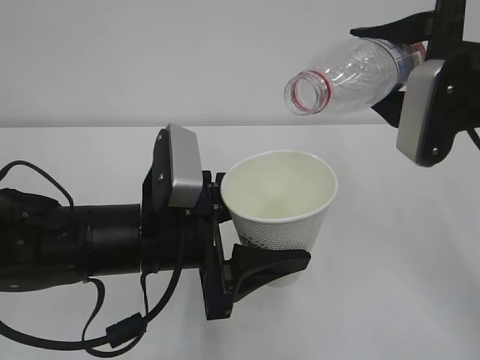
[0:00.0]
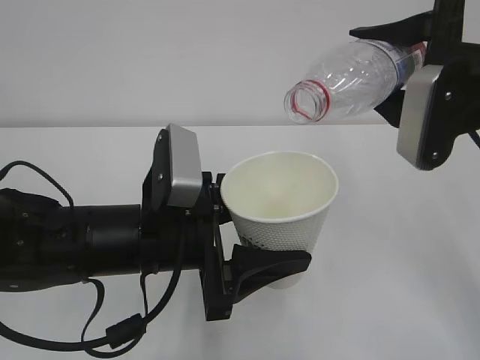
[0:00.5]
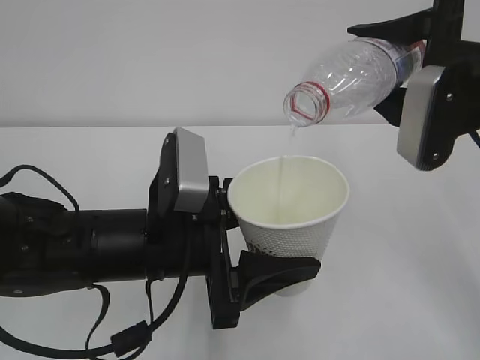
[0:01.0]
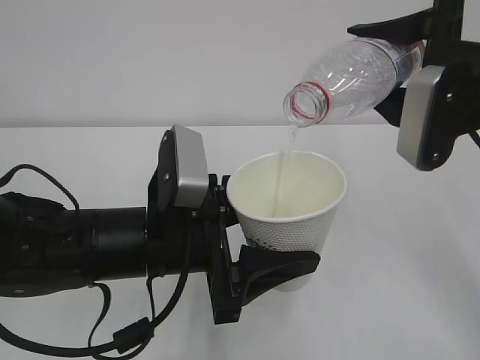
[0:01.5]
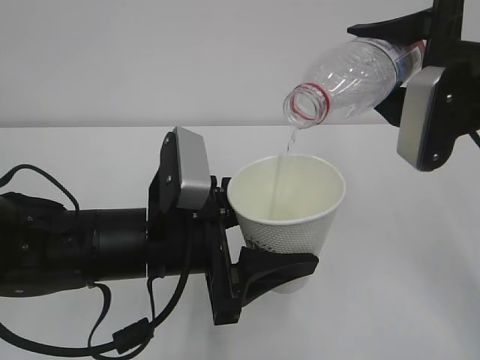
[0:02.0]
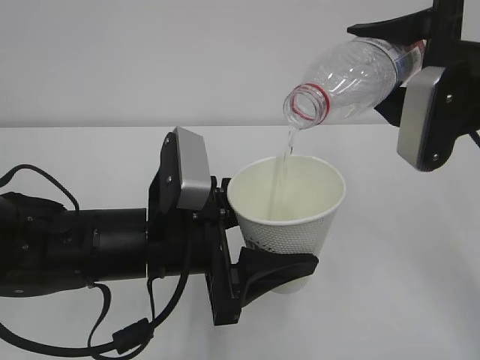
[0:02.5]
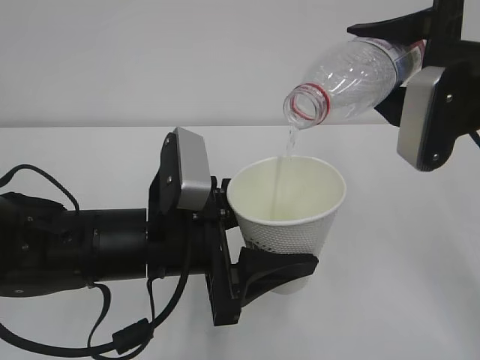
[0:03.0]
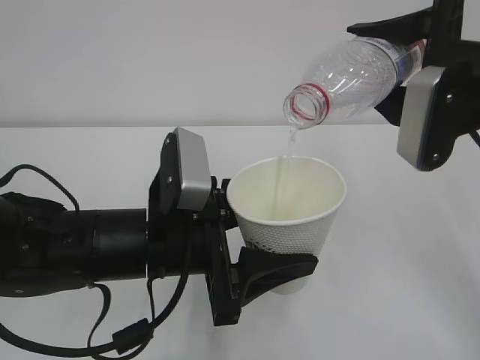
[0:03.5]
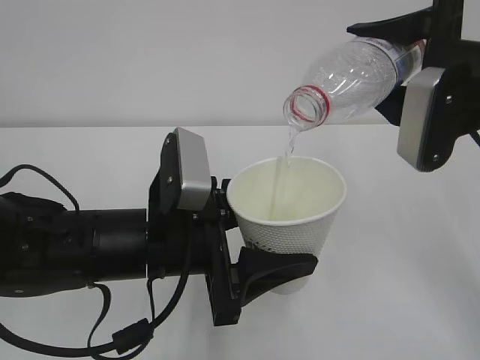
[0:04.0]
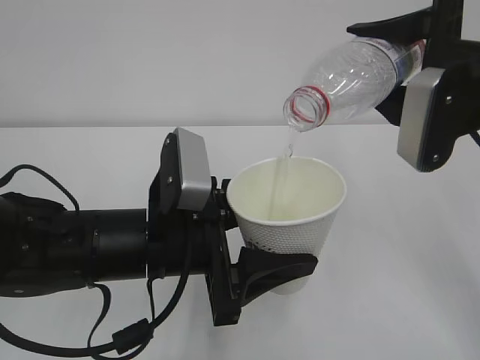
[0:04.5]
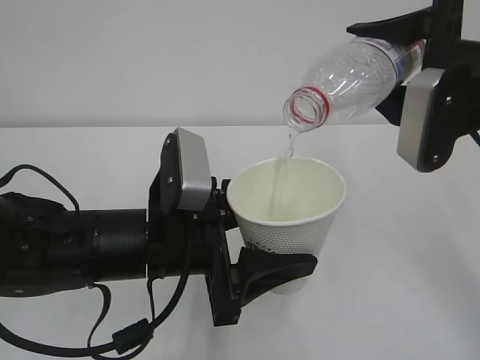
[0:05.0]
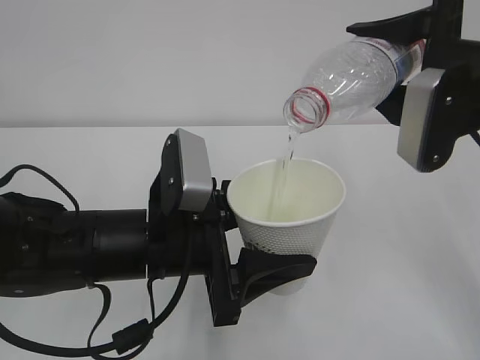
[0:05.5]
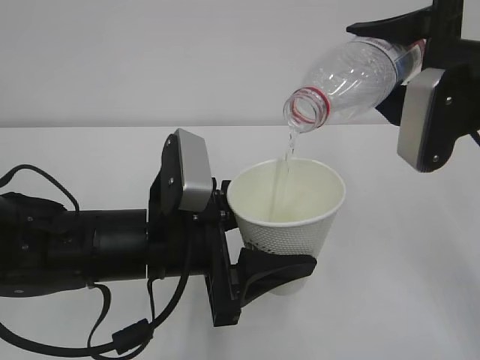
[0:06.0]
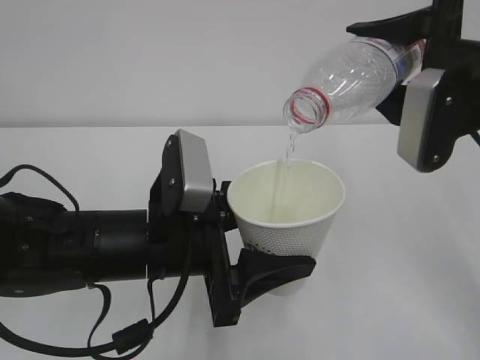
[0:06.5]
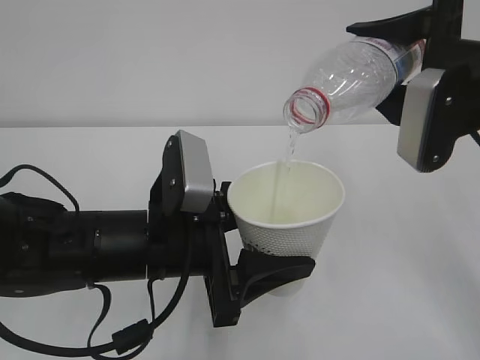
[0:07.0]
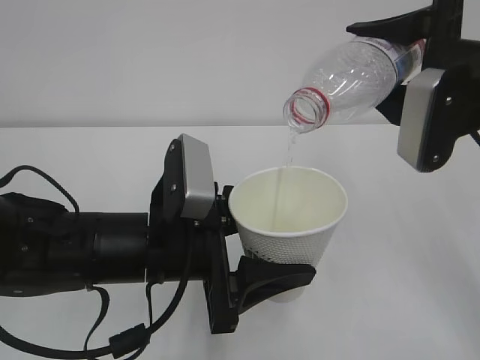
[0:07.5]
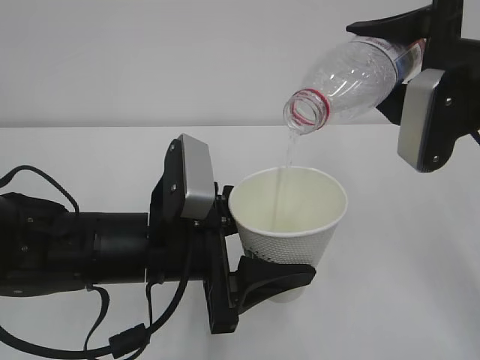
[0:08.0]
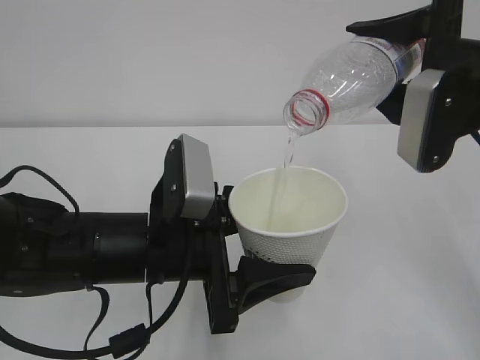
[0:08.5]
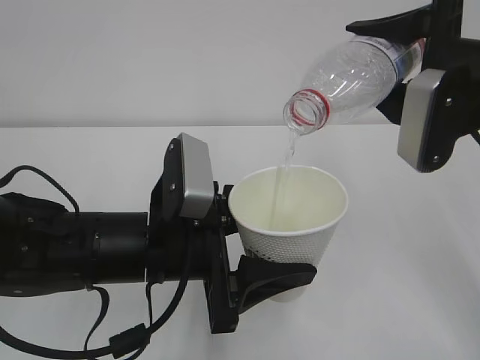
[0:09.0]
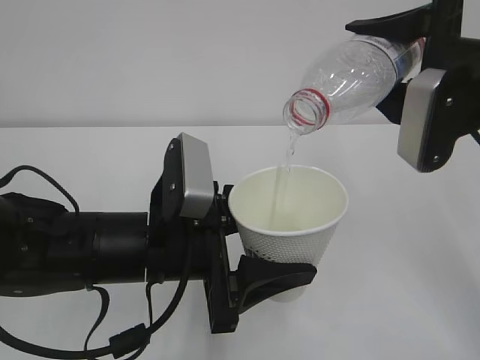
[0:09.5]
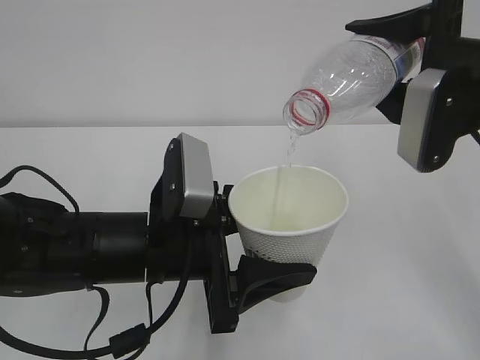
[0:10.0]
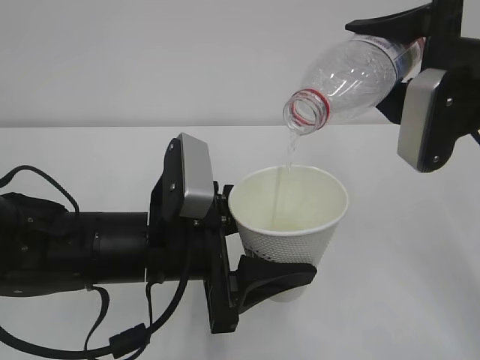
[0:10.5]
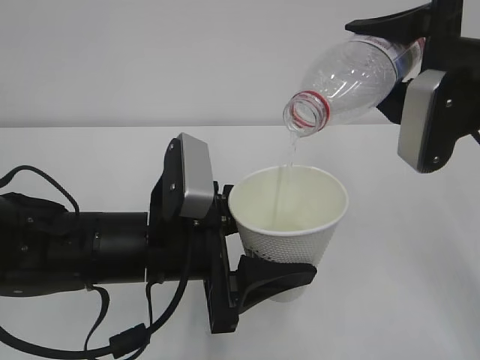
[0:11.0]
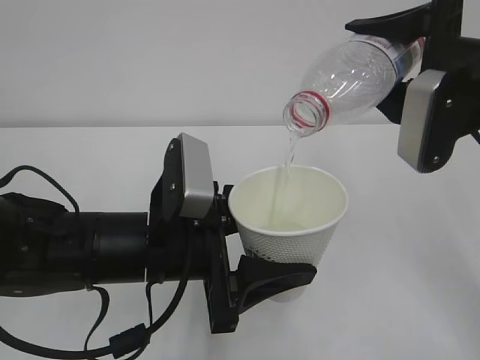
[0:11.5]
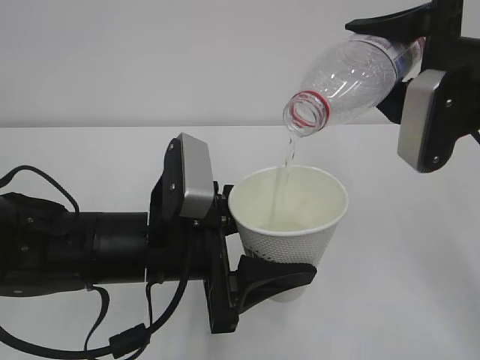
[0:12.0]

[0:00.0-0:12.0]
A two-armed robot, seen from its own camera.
0:00.0 to 0:02.0: Both grippers stay put.
0:02.0 to 0:12.0: Both grippers stay put.

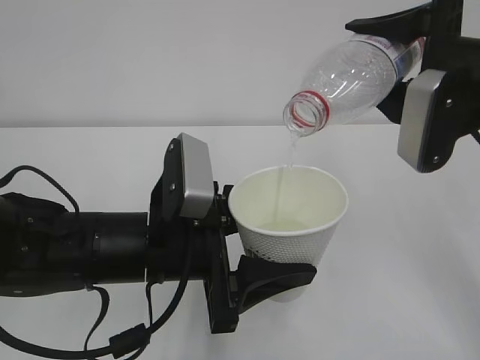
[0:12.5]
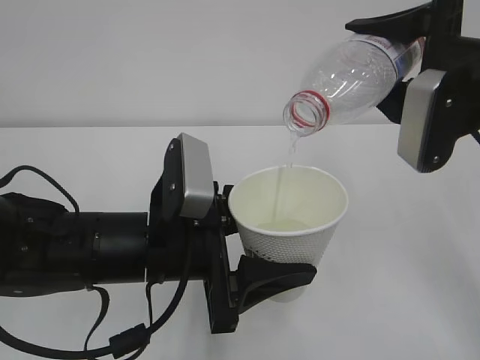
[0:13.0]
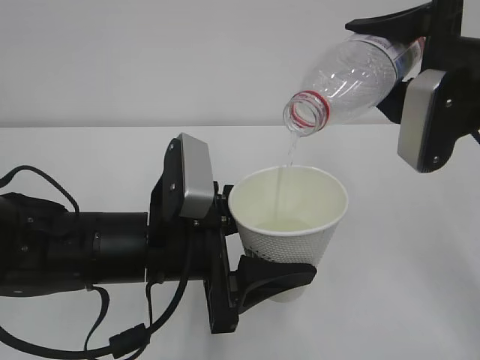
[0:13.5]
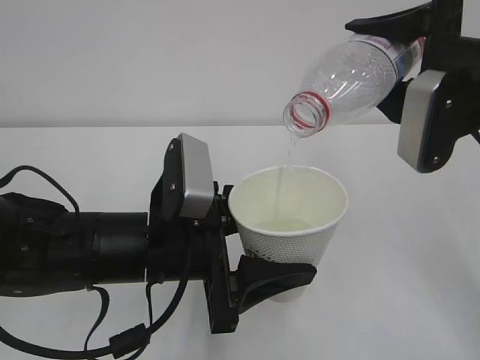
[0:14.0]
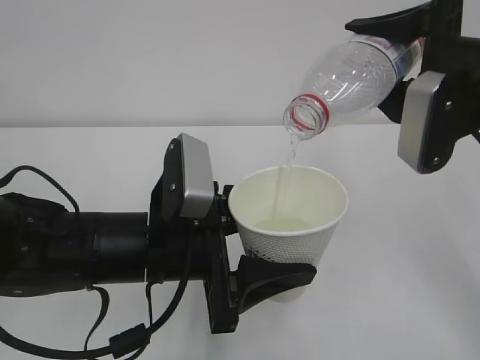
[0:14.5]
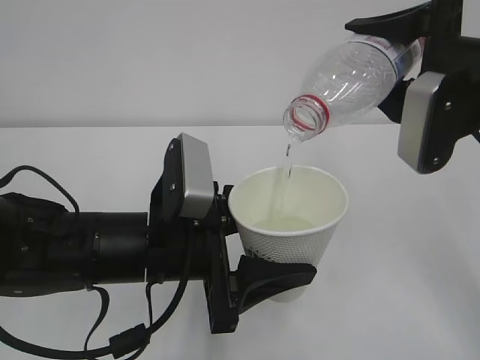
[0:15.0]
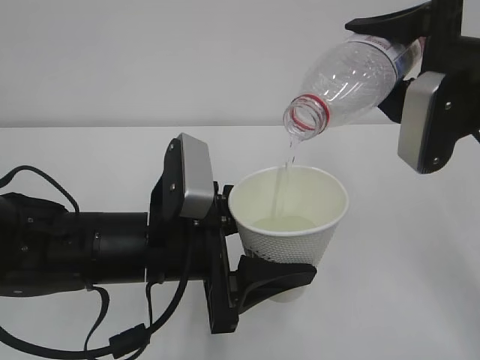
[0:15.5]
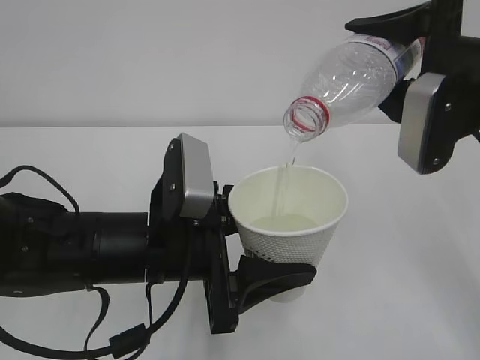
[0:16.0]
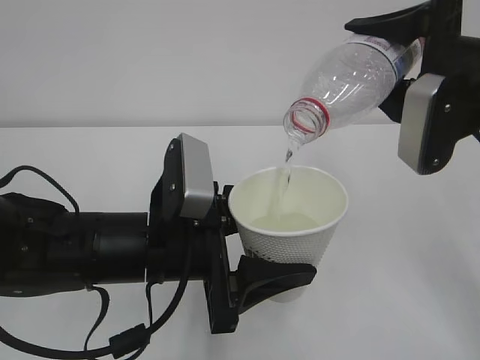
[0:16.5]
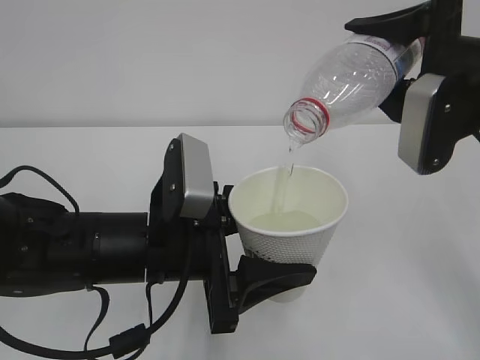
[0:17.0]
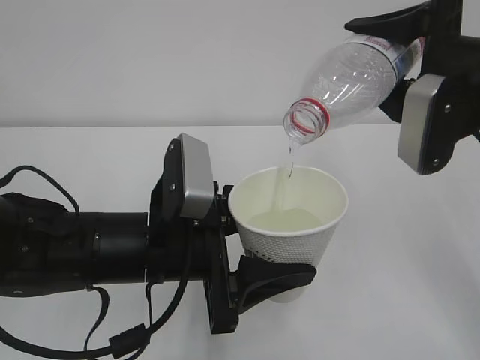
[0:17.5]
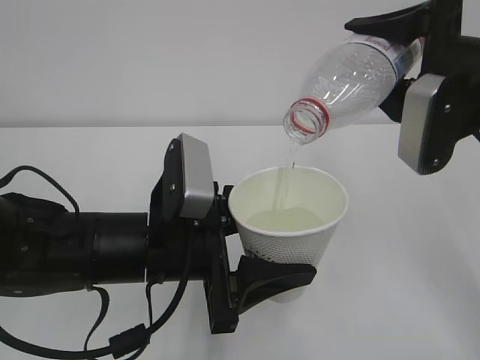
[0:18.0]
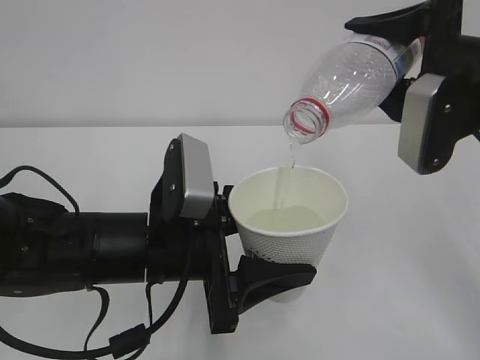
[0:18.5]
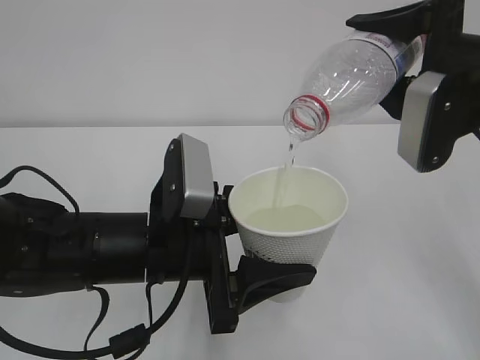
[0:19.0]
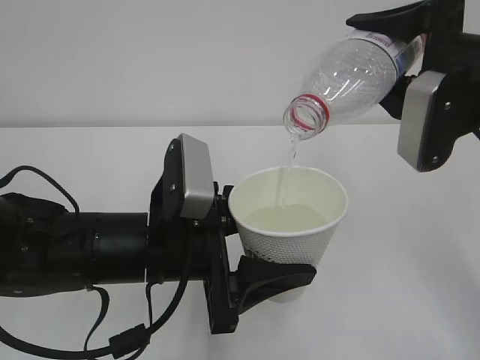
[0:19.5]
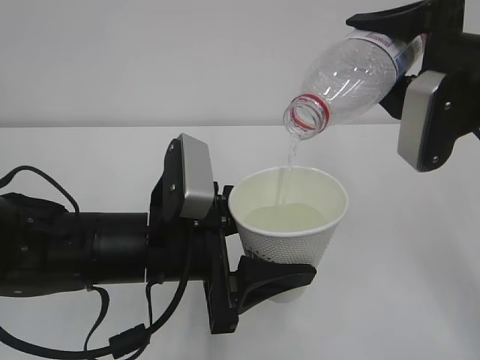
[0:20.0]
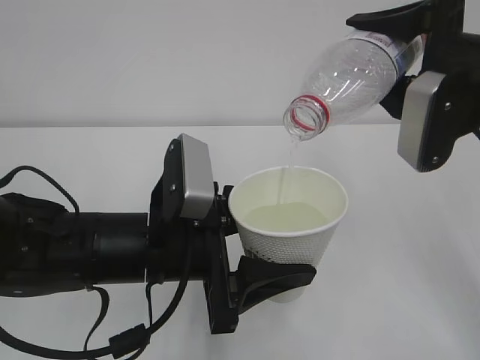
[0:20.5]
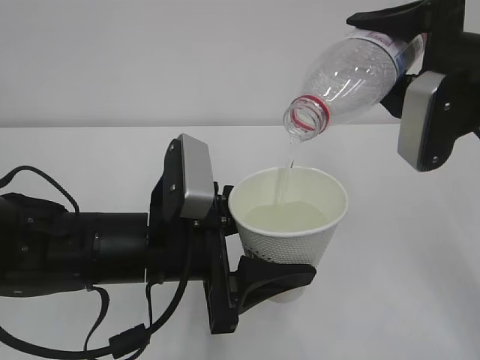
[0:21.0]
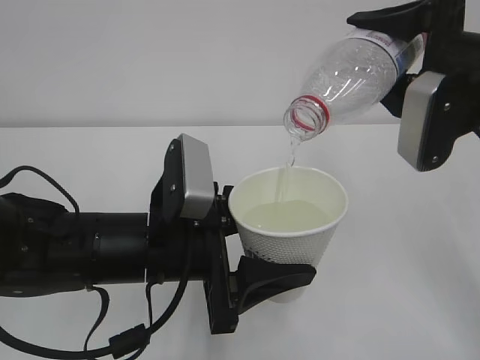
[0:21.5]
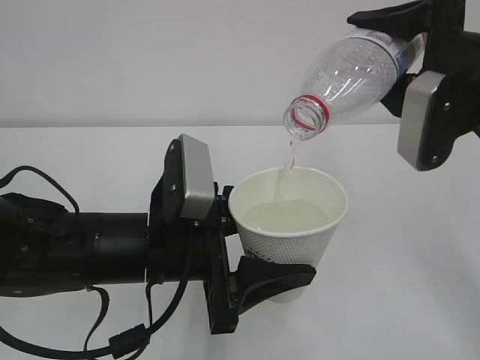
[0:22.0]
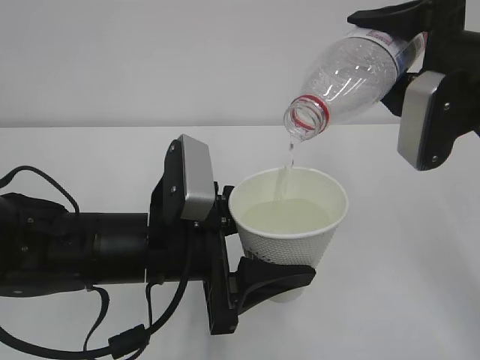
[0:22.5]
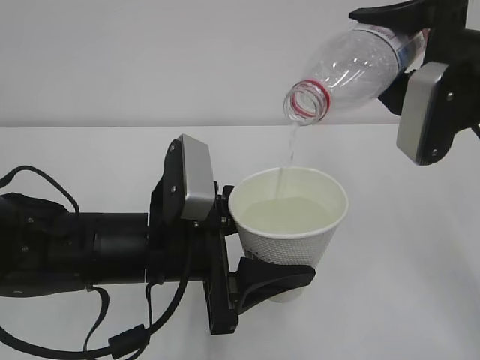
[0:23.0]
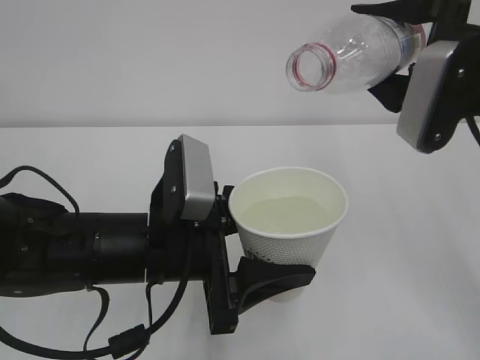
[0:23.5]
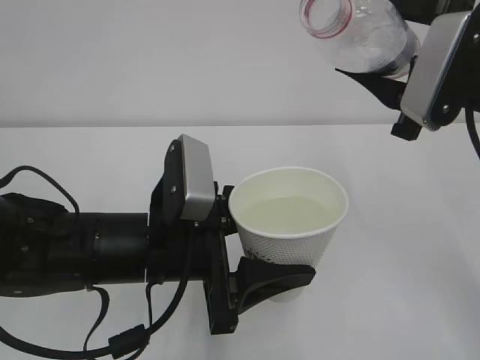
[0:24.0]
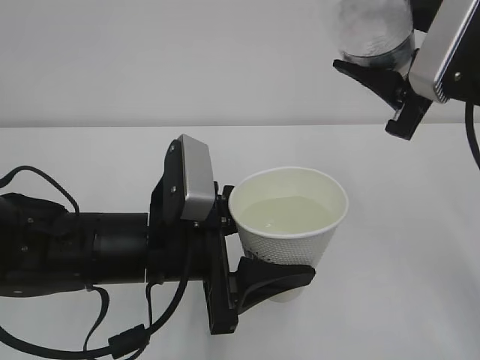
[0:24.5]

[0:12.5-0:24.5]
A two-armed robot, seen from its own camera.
0:12.5 to 0:20.5: Neither gripper changes place.
0:20.5 to 0:22.5: Both grippers stay put.

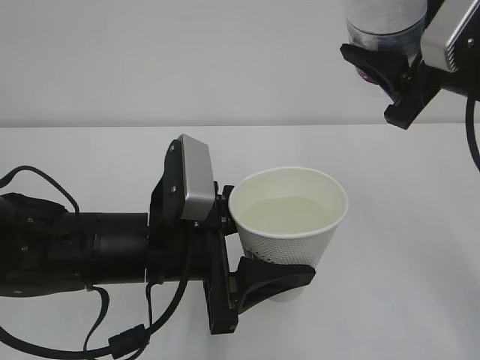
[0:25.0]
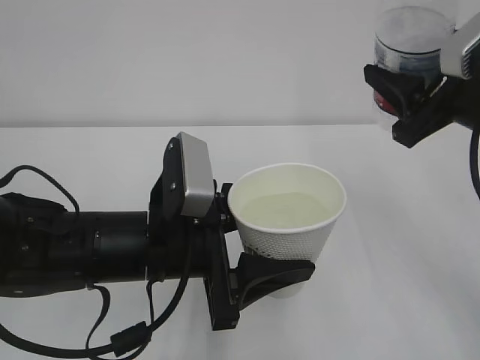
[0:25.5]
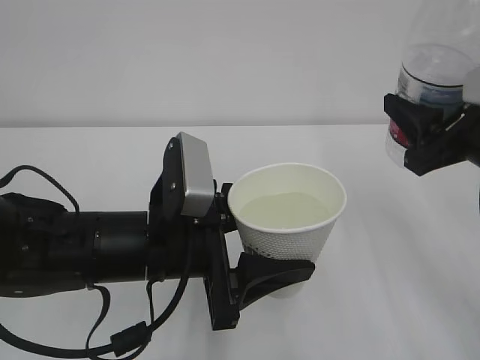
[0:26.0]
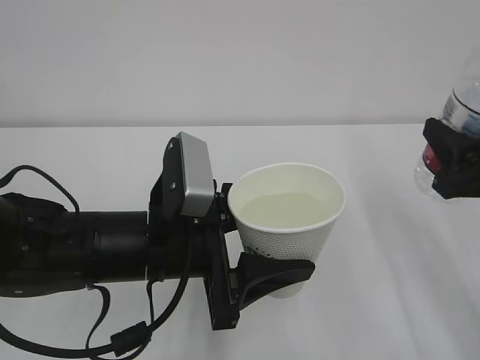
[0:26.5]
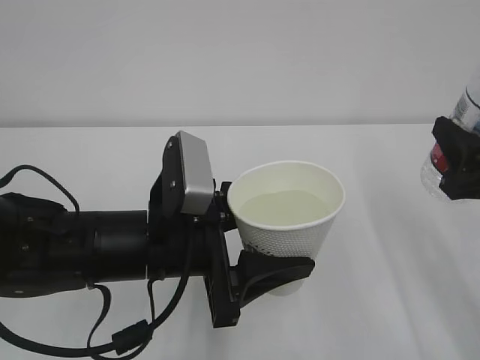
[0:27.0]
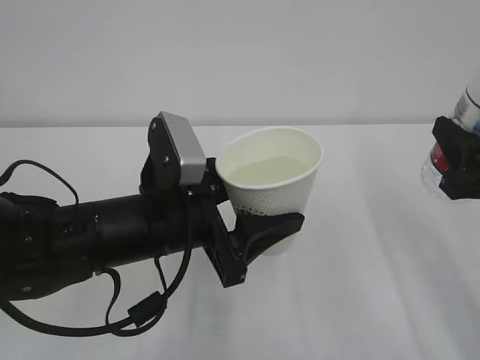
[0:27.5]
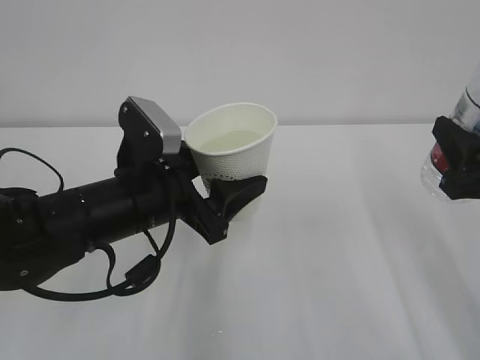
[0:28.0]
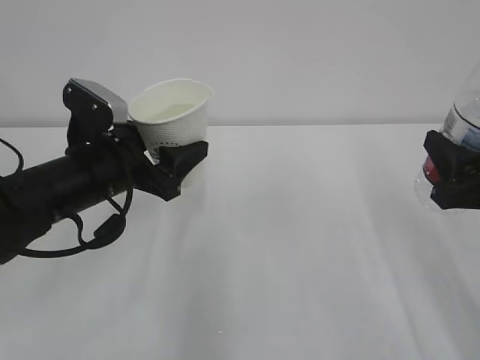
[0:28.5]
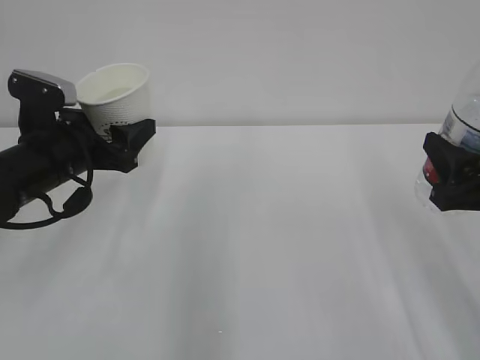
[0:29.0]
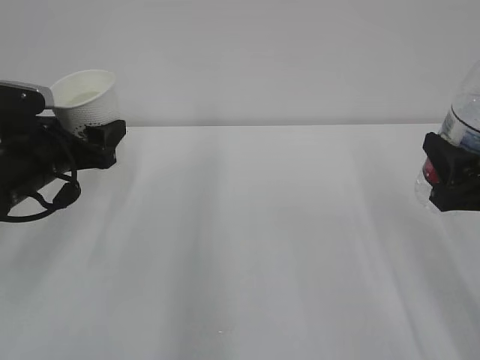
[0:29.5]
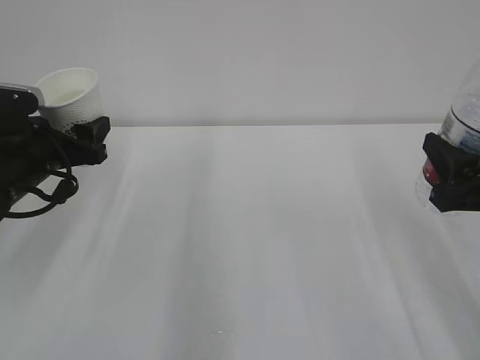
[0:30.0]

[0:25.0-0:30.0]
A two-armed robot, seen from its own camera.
0:25.0 to 0:27.5: The right gripper travels downward and backward by approximately 10 cm.
0:27.5 to 0:30.0: The left gripper heads to the left and forward, covering approximately 20 cm.
